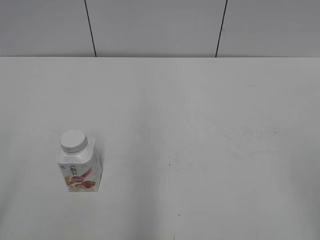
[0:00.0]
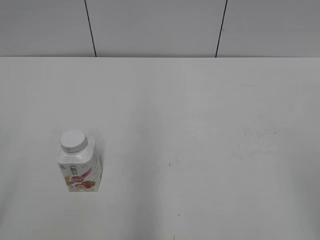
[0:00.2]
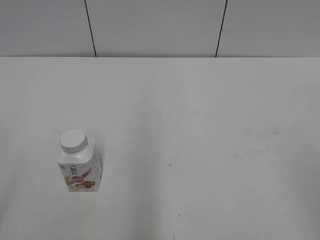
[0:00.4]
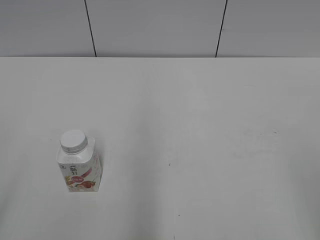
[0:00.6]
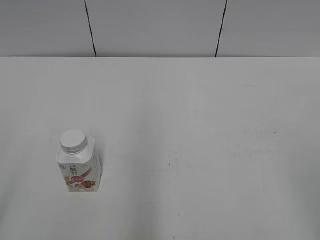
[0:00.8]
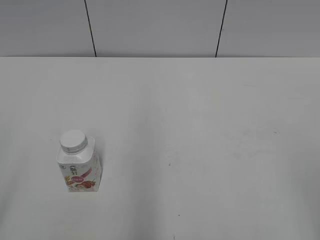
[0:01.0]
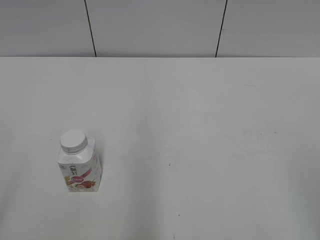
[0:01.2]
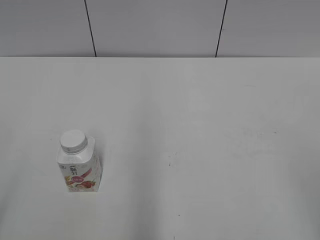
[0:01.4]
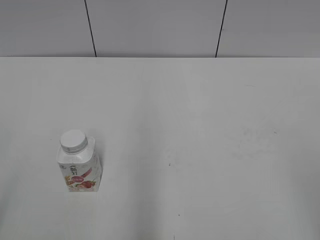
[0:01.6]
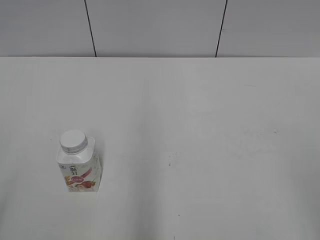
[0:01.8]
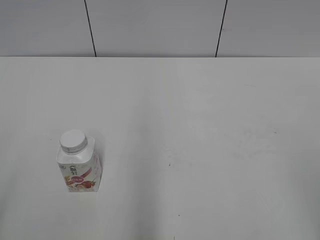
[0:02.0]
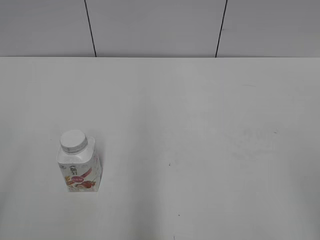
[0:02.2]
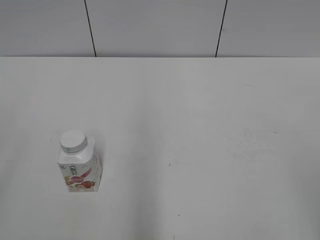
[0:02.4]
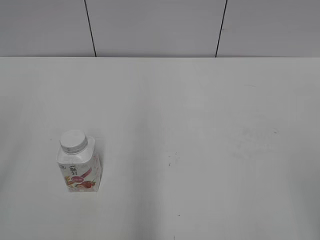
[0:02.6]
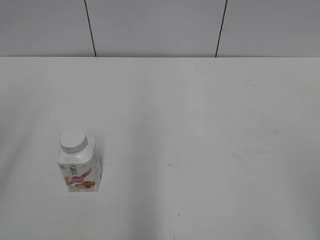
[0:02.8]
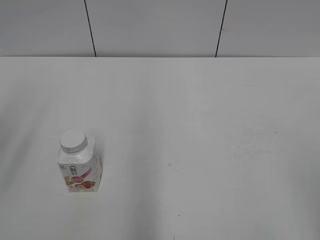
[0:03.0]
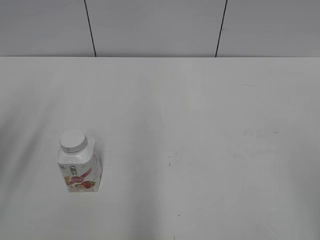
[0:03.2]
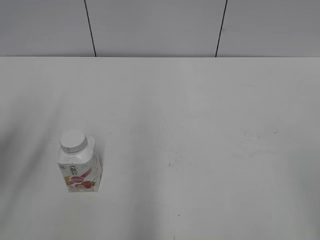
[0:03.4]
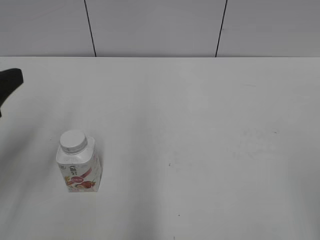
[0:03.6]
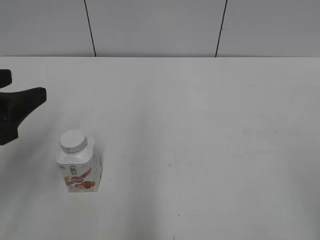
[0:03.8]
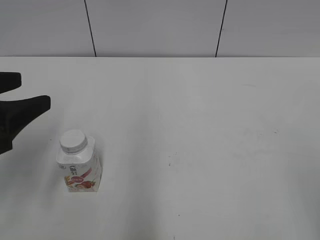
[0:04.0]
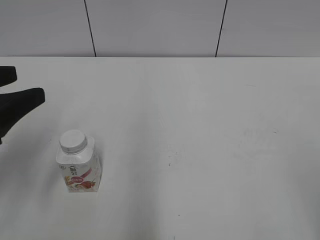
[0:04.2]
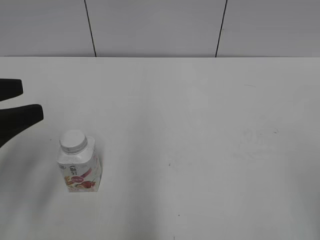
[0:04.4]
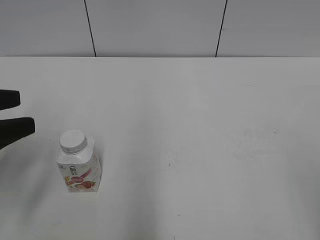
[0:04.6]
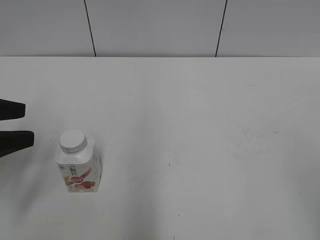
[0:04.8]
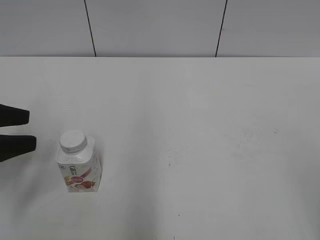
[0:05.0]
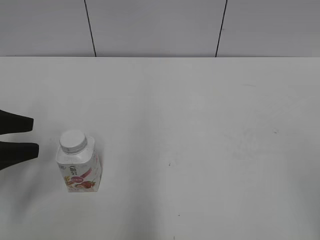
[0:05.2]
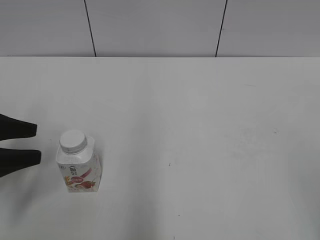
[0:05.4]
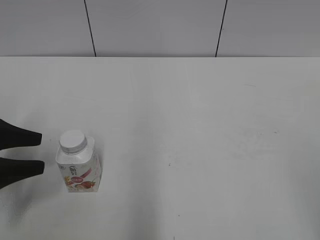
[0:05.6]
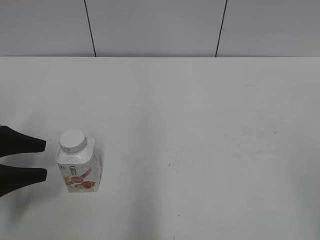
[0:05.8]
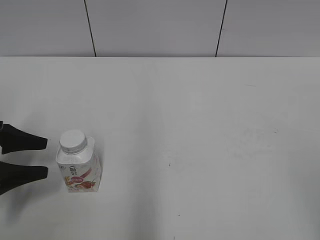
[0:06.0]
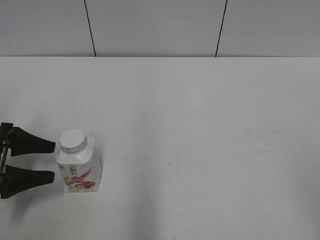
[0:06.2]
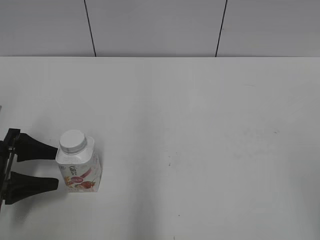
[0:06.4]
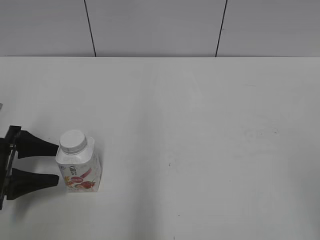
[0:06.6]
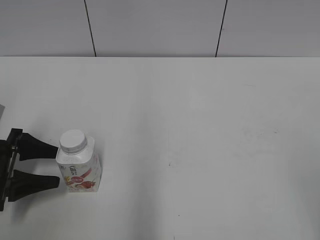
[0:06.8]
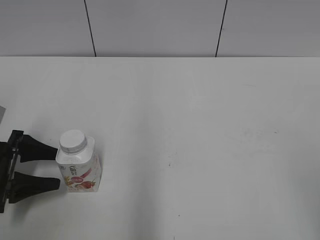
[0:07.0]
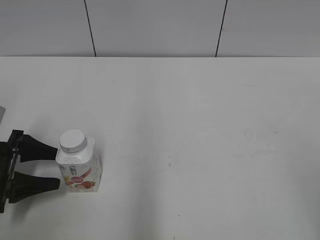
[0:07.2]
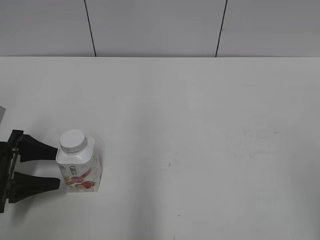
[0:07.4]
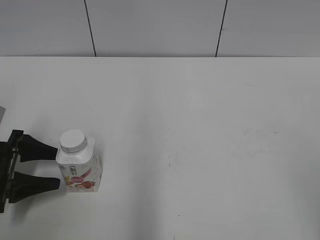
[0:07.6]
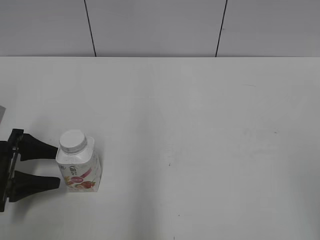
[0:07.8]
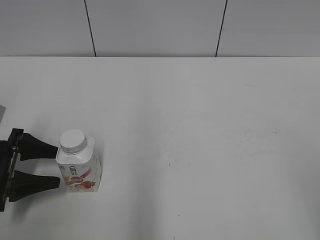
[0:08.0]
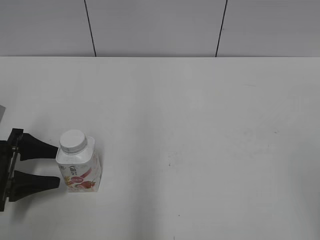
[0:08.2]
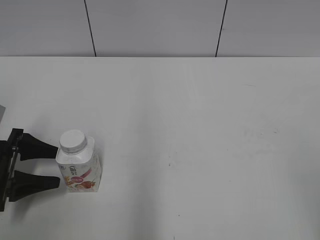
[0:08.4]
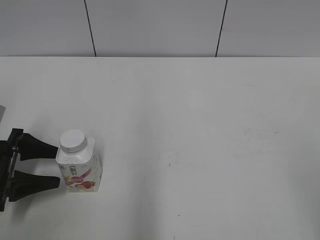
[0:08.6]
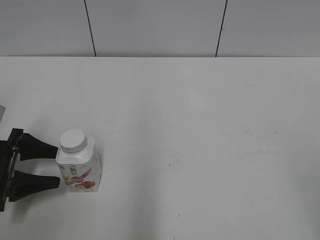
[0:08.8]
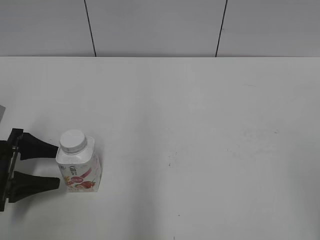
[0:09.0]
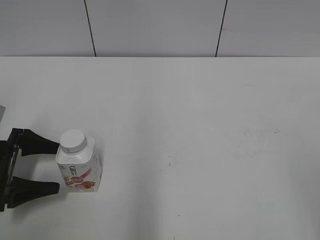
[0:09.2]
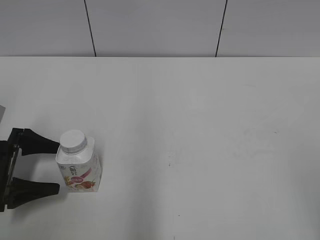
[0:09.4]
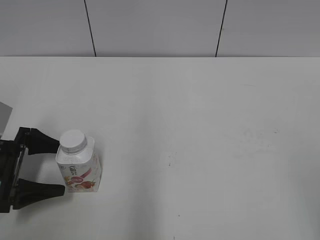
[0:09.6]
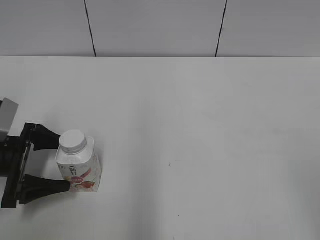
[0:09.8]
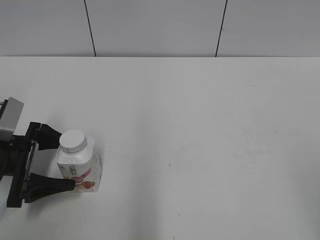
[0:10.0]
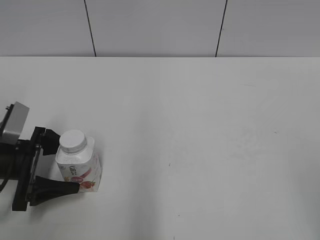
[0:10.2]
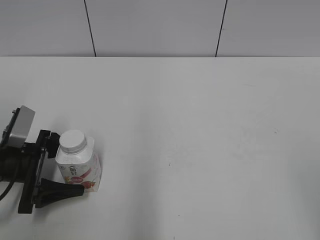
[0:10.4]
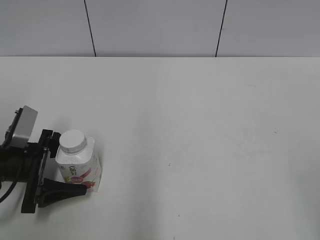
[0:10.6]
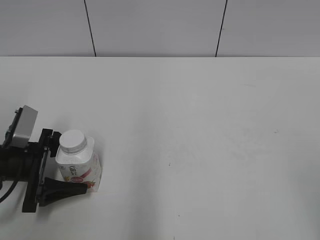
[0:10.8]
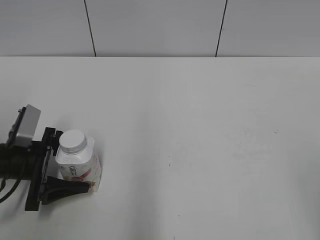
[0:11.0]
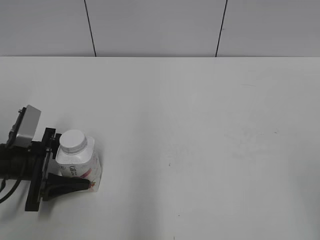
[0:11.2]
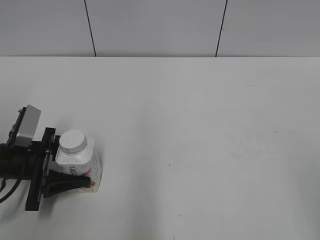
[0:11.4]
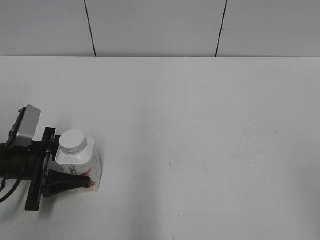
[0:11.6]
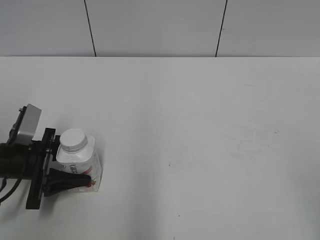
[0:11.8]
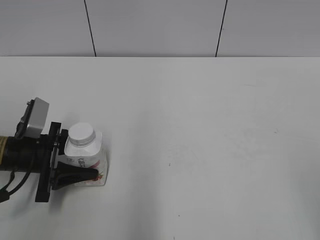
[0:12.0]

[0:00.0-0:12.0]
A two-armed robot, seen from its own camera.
Step, 0:00.0 to 0:11.6: Grab the Yili Changqing with the left hand.
0:03.0 to 0:04.4: The left gripper is displaced downward by about 10 cm.
0:04.4 to 0:06.0: The left gripper goes some 10 cm downward.
0:06.0 to 0:07.6: The grippers move only a little.
0:07.6 to 0:09.0: The two grippers keep their place.
0:09.0 to 0:10.4: The left gripper opens up.
0:10.4 to 0:12.0: The left gripper closes up.

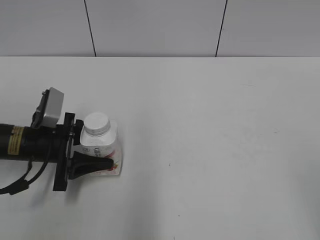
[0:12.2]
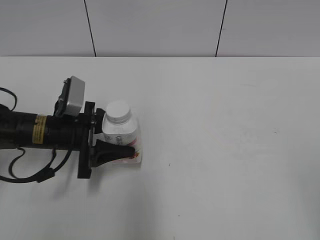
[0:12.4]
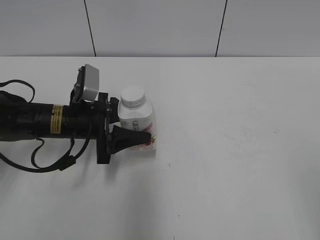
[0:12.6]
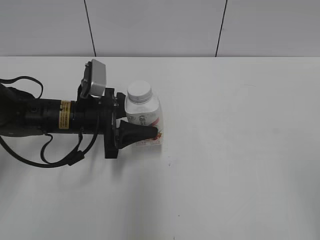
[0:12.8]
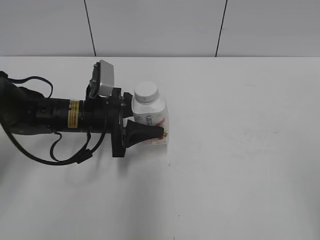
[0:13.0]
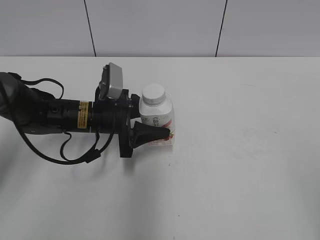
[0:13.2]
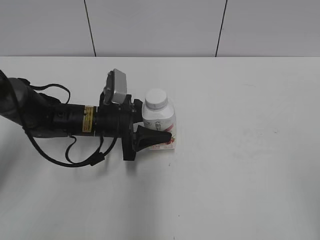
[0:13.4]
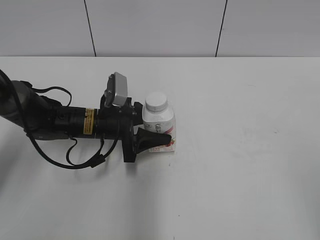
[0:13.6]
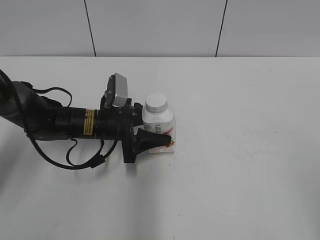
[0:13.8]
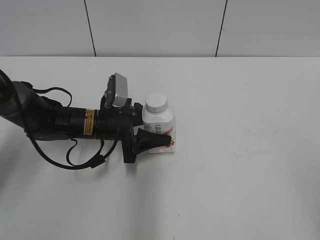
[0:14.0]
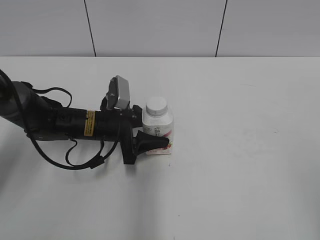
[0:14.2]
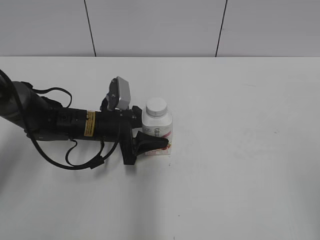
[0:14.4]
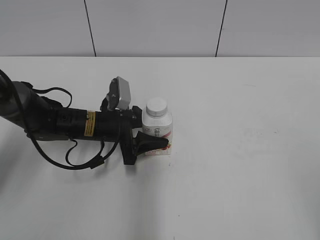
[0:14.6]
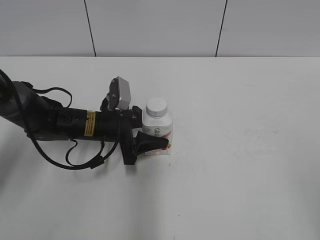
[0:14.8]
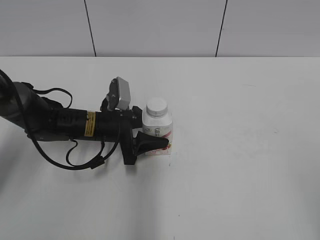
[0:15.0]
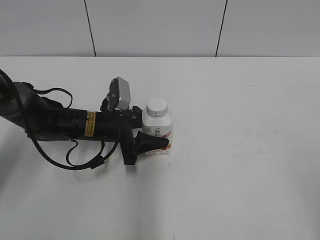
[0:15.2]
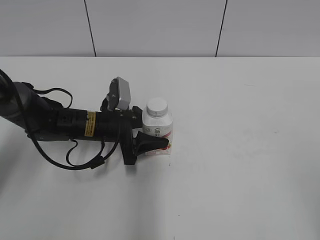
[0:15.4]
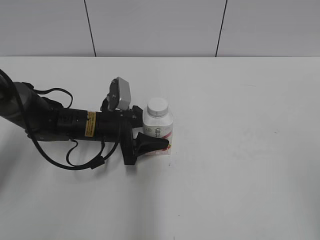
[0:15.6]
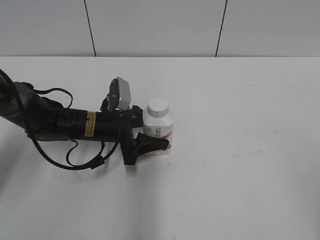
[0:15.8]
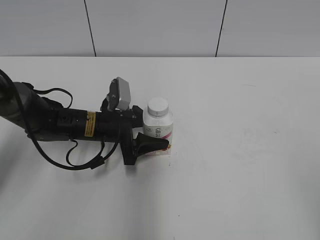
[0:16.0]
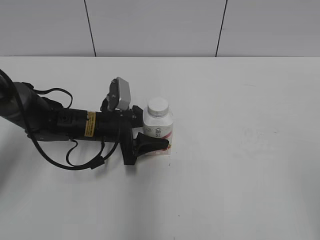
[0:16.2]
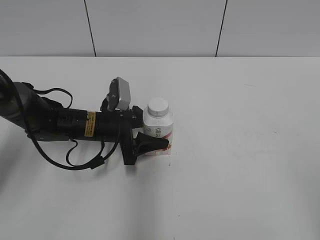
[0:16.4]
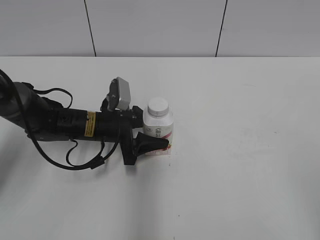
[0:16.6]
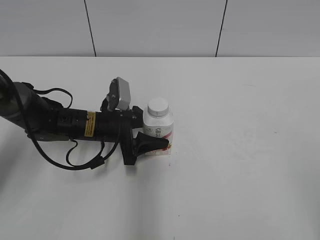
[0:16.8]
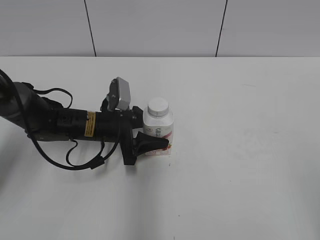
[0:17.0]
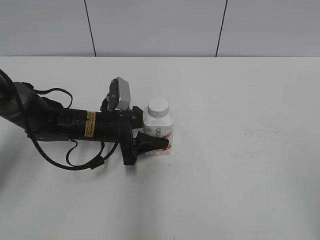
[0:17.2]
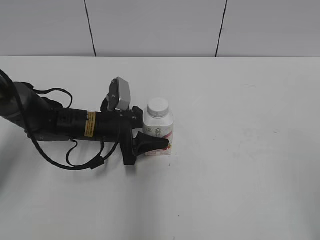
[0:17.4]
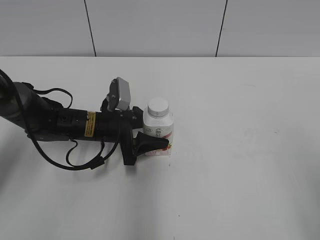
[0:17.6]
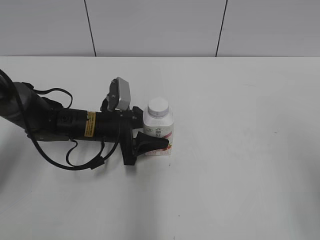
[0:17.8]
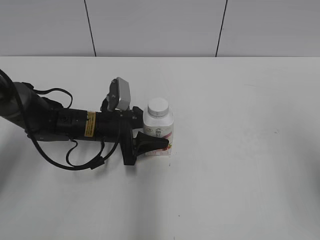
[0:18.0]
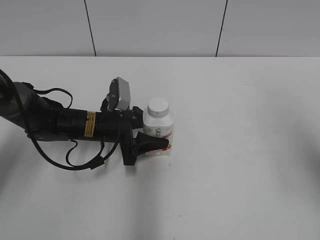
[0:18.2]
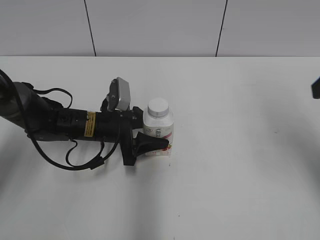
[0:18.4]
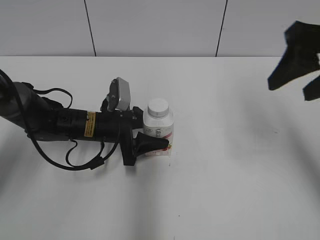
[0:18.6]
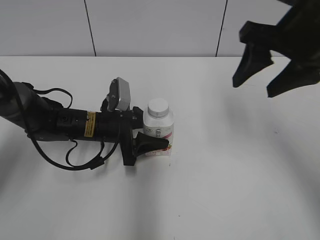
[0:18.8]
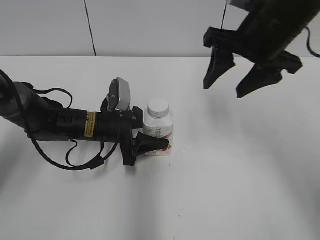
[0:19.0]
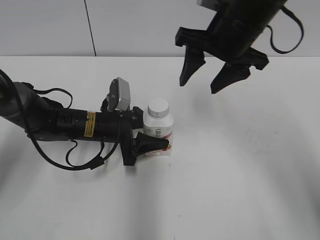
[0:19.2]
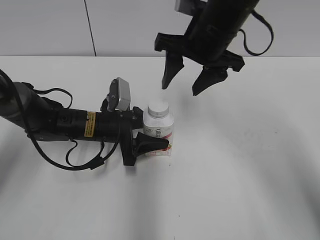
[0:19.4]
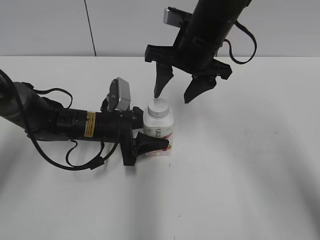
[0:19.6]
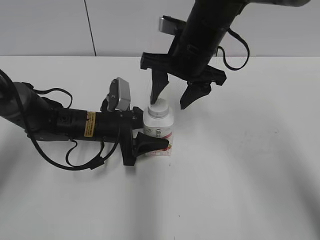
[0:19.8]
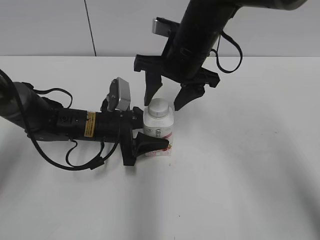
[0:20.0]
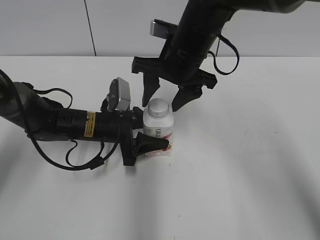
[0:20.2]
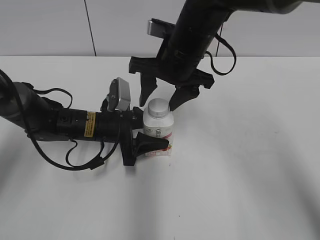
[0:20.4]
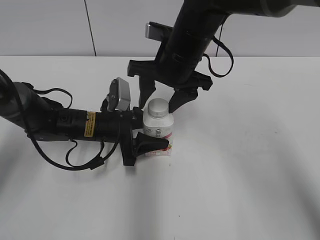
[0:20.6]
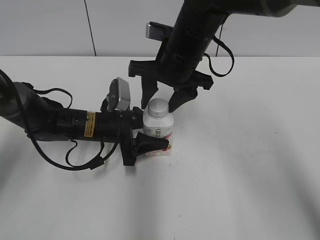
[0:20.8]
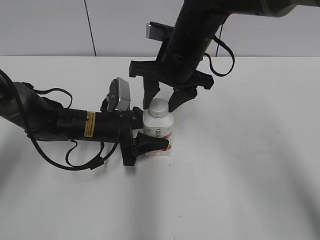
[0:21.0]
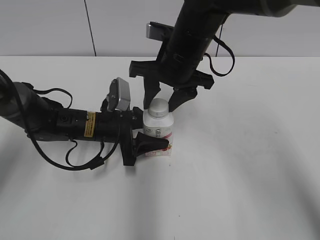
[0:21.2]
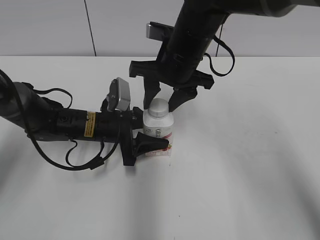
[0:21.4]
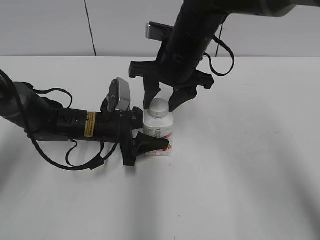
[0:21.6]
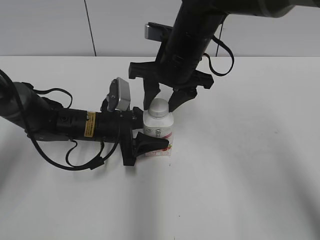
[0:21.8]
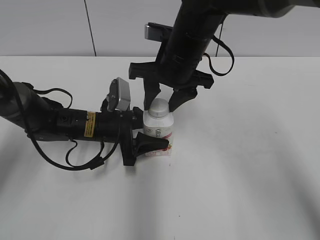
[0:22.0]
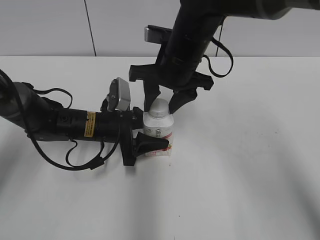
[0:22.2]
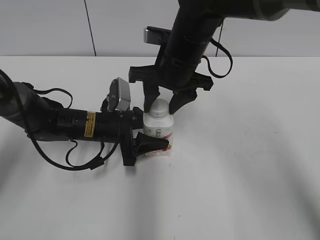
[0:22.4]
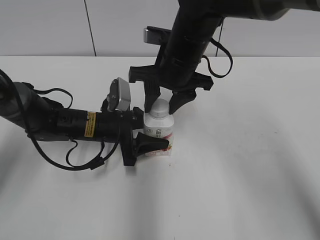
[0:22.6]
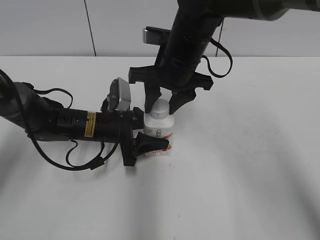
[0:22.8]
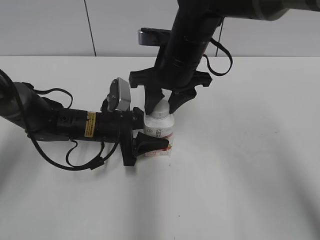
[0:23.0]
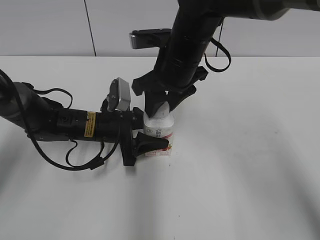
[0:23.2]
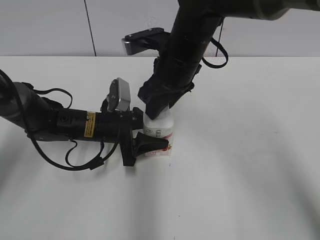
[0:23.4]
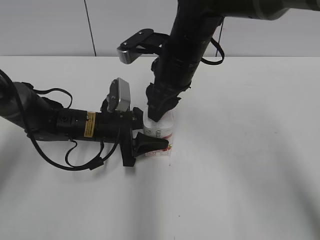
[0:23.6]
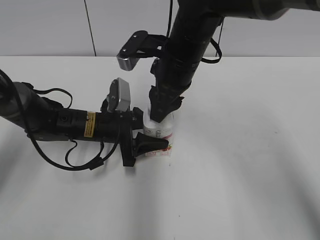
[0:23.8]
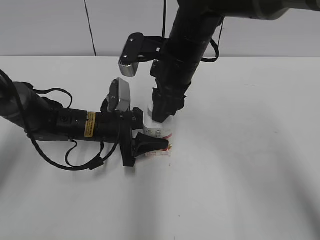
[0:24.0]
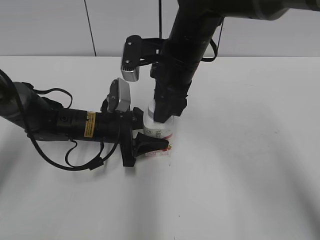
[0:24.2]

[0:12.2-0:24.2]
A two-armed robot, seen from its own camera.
Step, 0:12.2 to 0:15.4: Move the Yili Changqing from left to right.
0:12.2 to 0:13.8: The left gripper moves to the right and forward, about 10 cm.
0:13.8 to 0:15.2: There are only small adjustments of the grippers.
0:15.2 to 0:16.6: Neither gripper changes place.
0:16.6 to 0:18.2: The right gripper is displaced forward by roughly 20 cm.
0:18.2 to 0:19.8: The right gripper moves to the left, forward and downward, about 30 cm.
0:19.8 to 0:21.2: The right gripper closes.
0:21.2 to 0:22.6: Neither gripper changes place.
